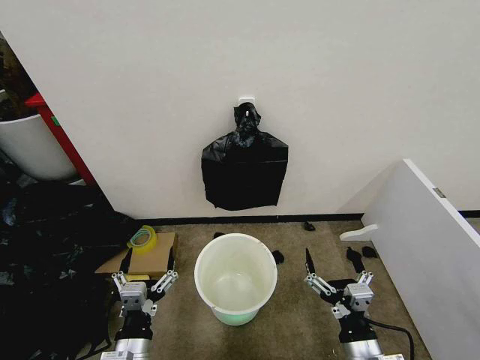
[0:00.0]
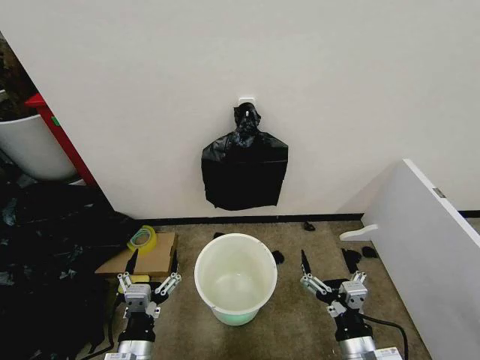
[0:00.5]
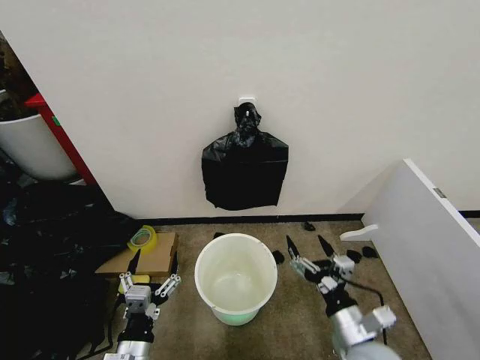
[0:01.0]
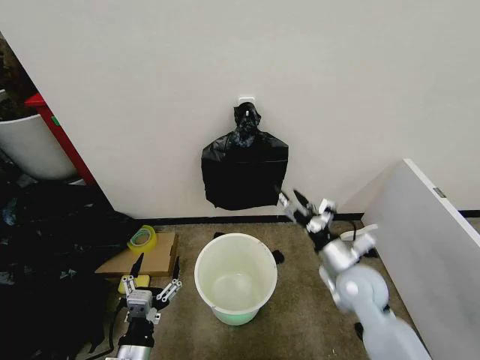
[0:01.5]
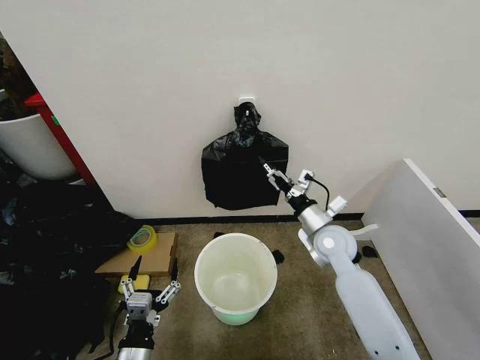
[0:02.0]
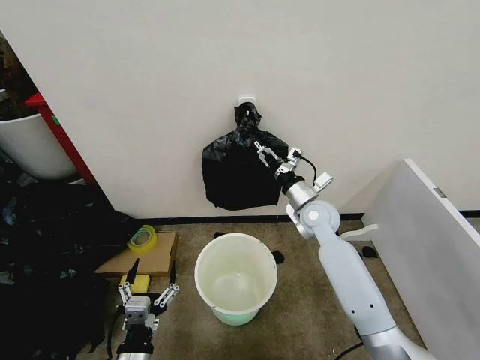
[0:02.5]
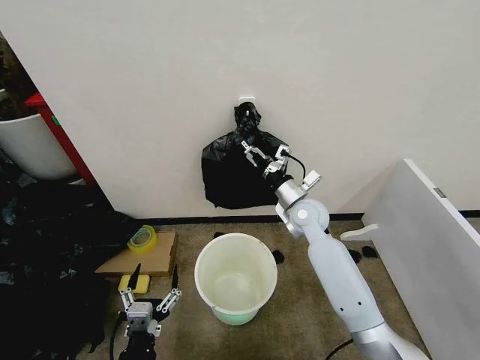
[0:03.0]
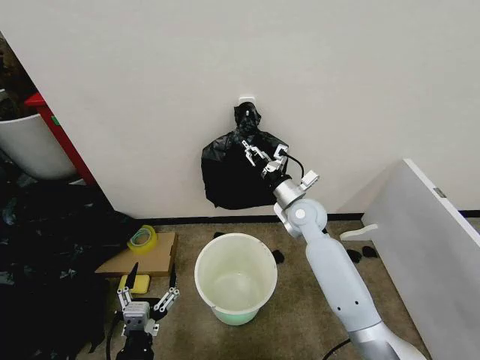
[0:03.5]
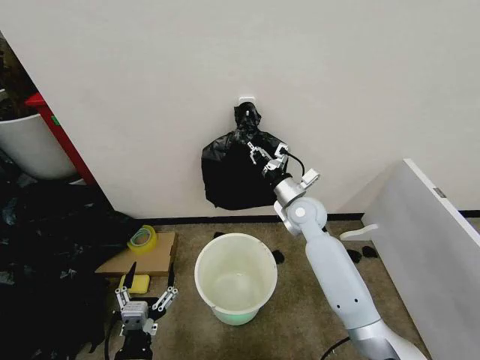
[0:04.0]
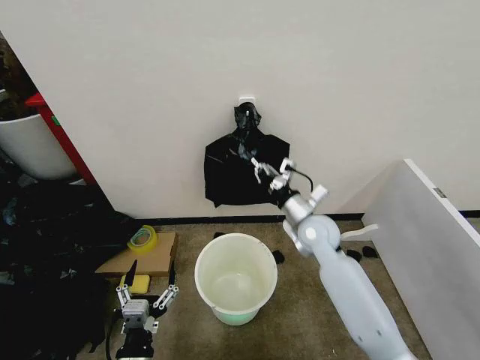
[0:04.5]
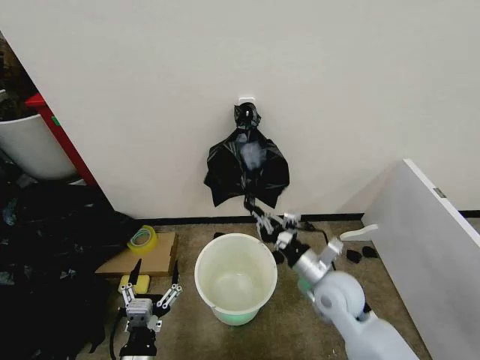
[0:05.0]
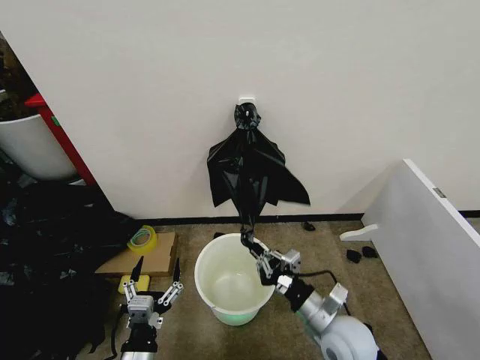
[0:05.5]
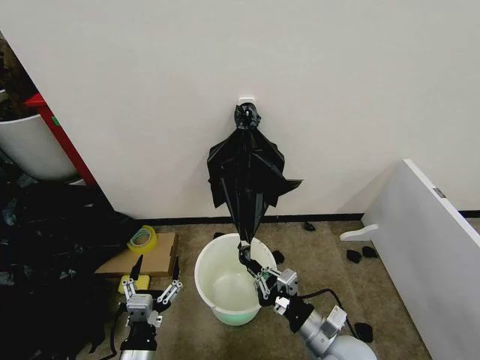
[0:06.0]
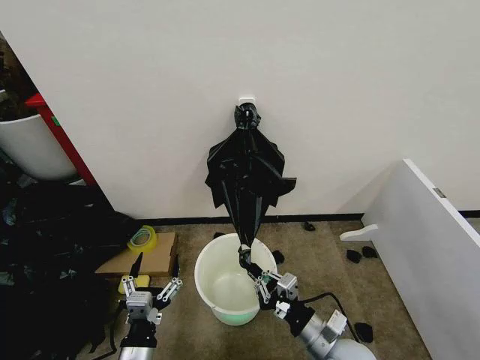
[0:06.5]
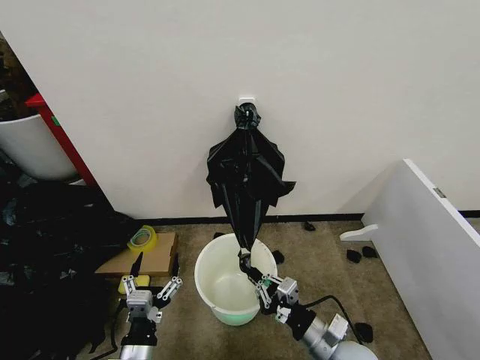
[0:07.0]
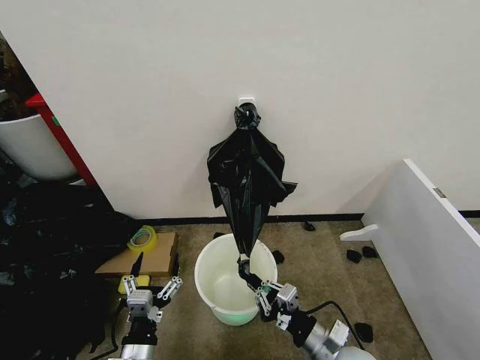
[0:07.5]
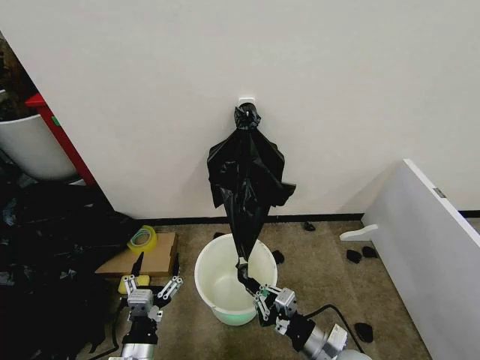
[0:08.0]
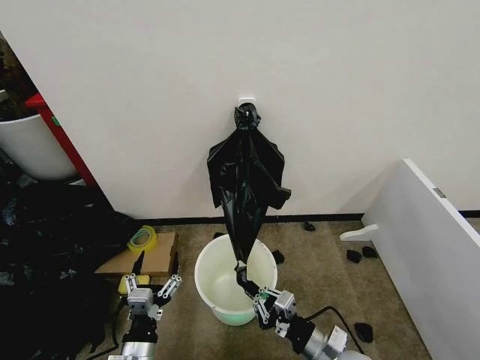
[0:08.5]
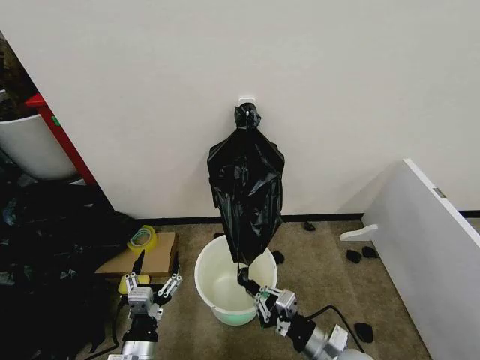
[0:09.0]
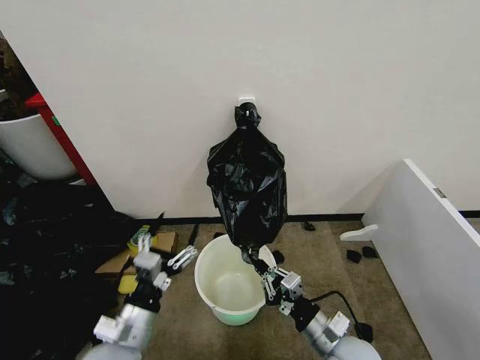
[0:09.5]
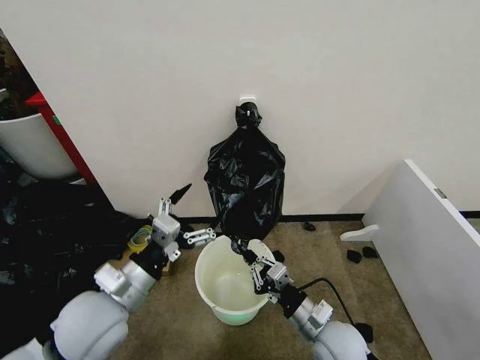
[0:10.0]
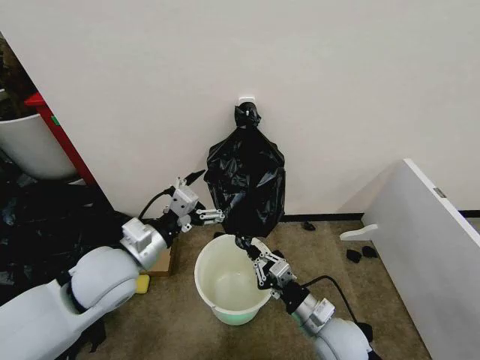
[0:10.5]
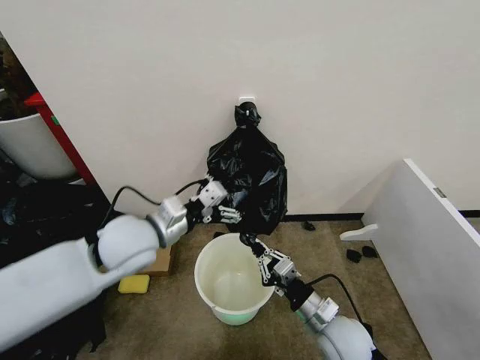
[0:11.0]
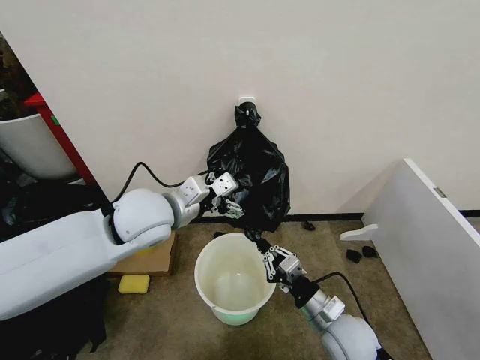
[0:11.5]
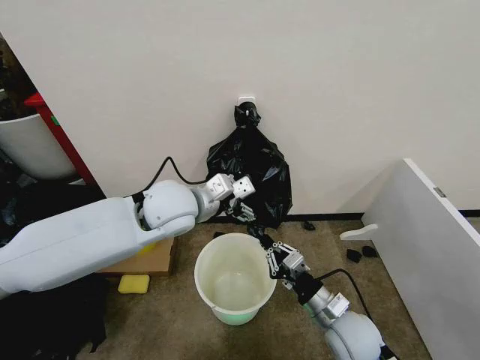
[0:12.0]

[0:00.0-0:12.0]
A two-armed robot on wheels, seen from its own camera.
Task of the whole recording: Place the garbage bag over the trash bin.
0:02.0 to 0:04.0: The right gripper shifts about 10 cm forward and to the left, and closes up.
0:04.0 to 0:06.0: The right gripper heads backward, covering some 30 cm.
0:06.0 to 0:08.0: The grippers move only a little.
0:08.0 to 0:10.0: The left gripper goes about 20 cm upward and forward, while the right gripper shifts by roughly 5 cm.
0:10.0 to 0:12.0: The left gripper heads forward, to the right and upward, covering about 20 cm.

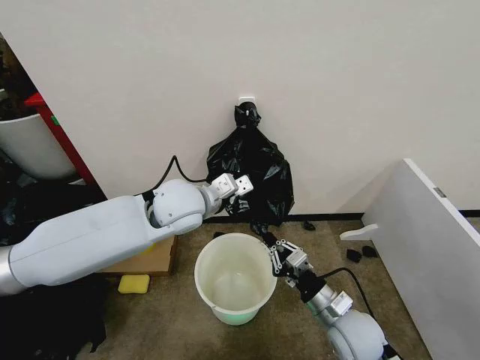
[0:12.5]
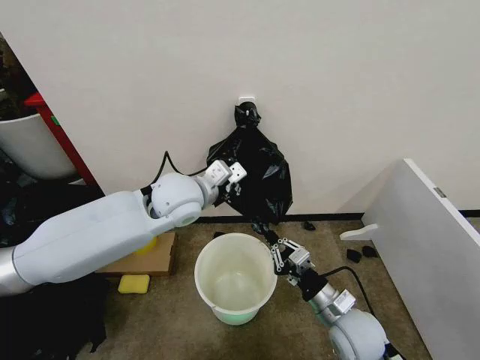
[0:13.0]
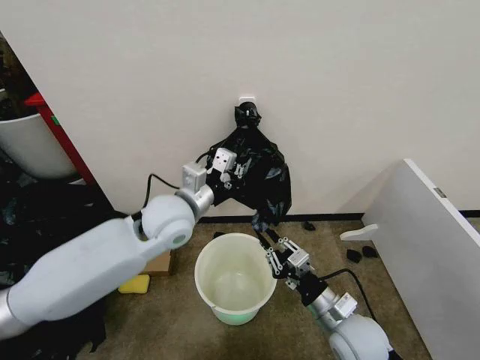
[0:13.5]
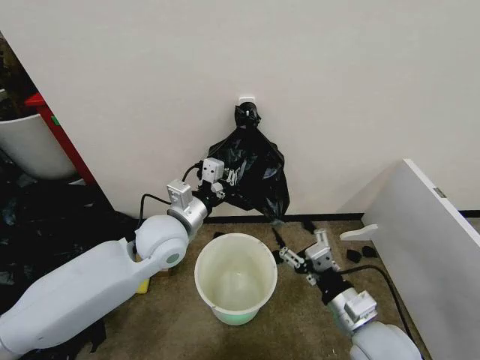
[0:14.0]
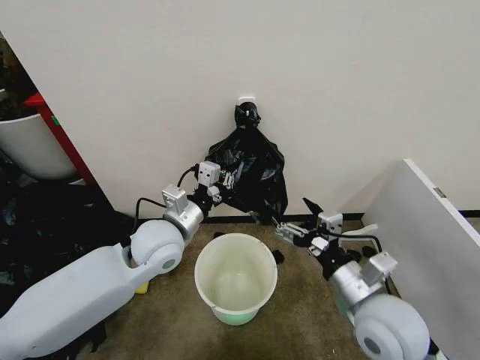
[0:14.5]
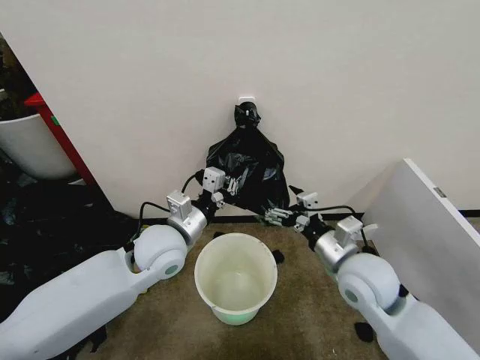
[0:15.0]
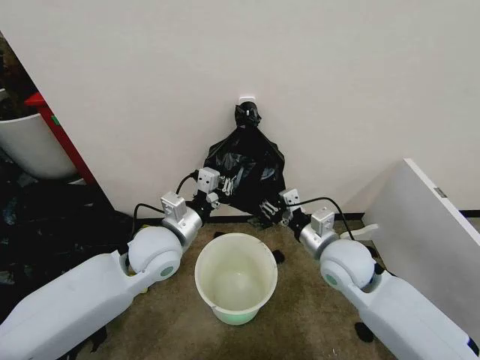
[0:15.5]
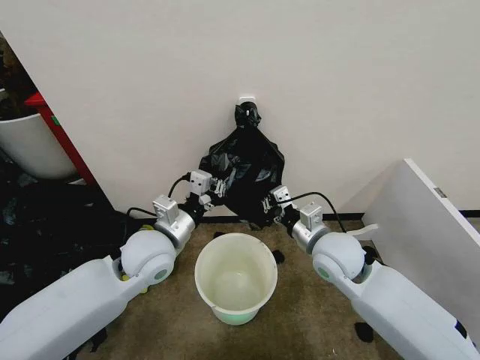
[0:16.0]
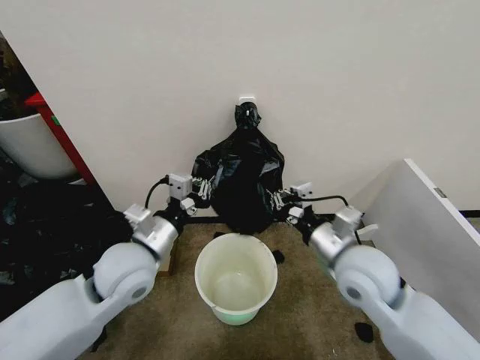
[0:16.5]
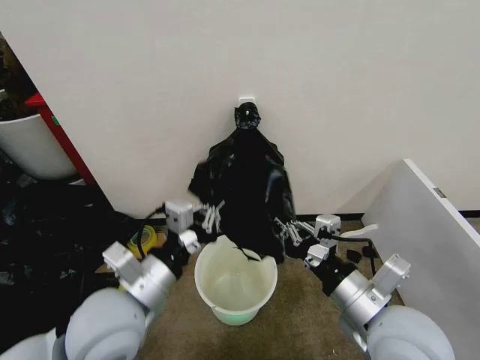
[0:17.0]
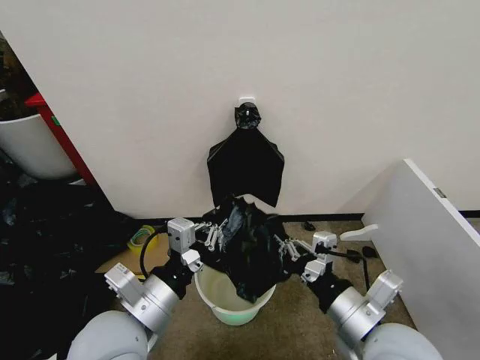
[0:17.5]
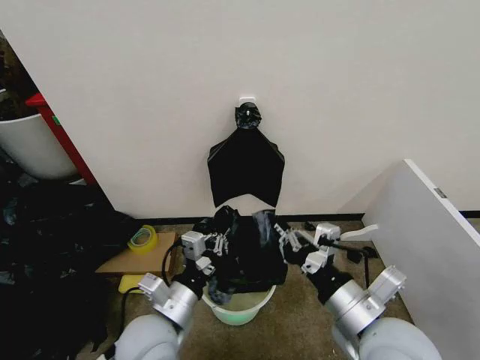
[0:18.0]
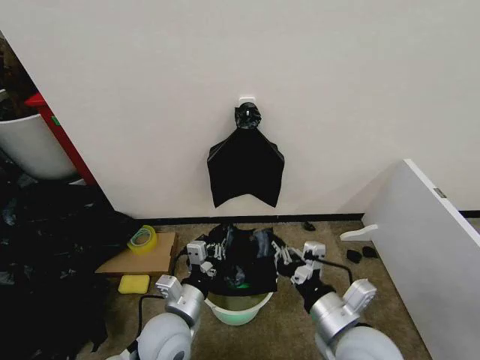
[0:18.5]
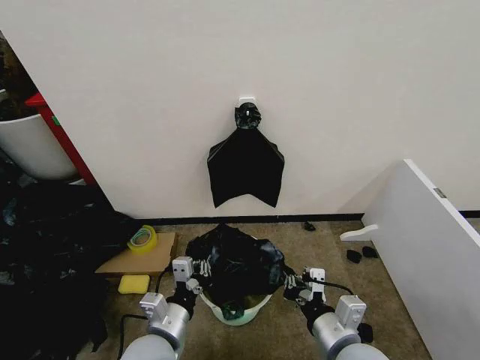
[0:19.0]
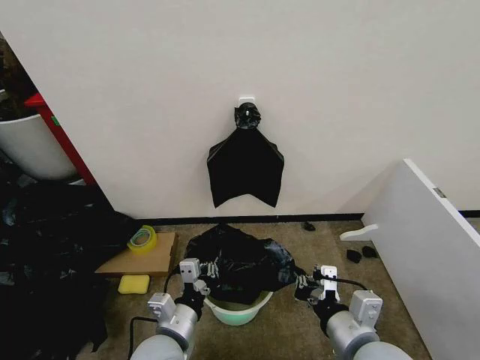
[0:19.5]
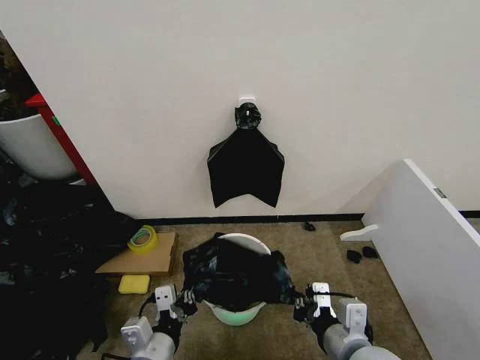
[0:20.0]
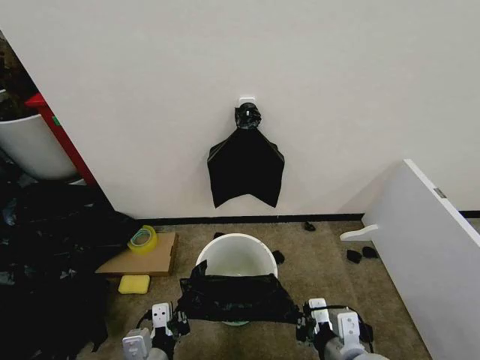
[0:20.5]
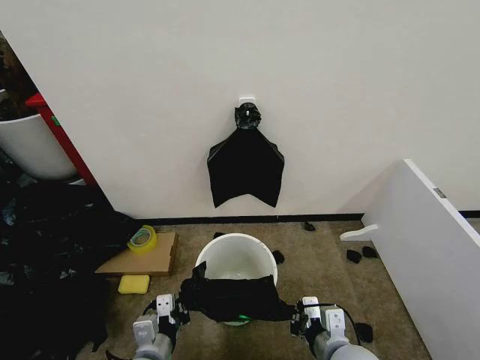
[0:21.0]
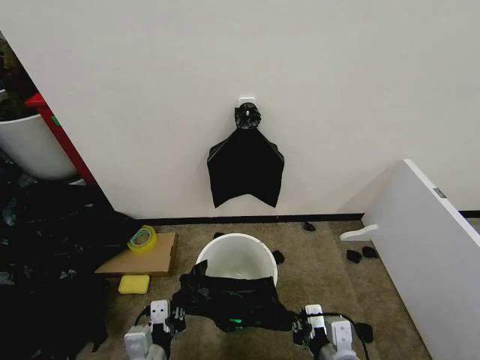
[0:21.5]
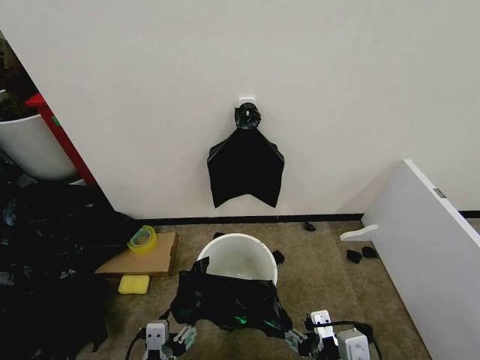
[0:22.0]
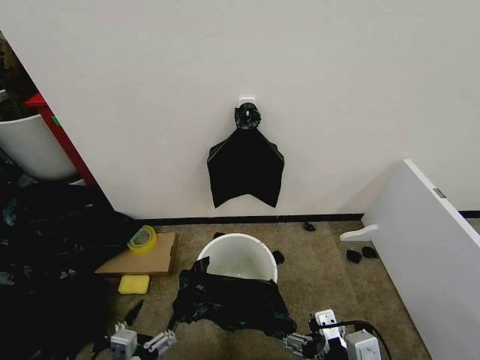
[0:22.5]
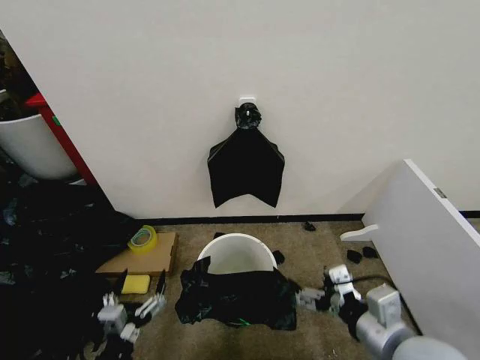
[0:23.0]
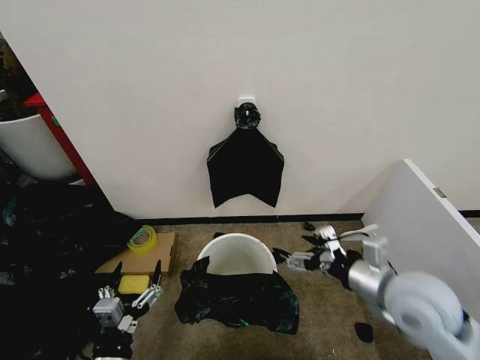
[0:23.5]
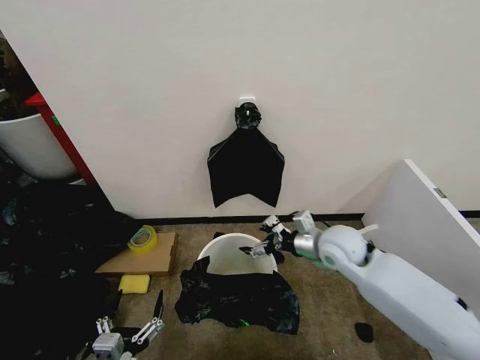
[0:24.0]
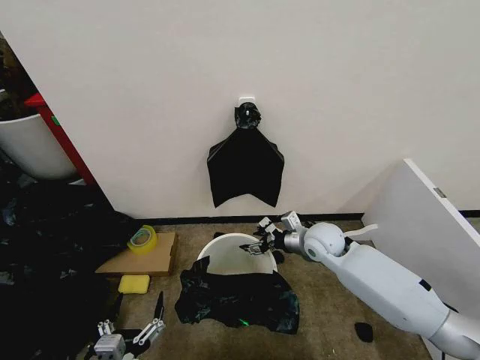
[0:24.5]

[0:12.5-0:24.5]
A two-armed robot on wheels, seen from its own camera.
Task of the whole recording: Place the garbage bag over the trash bin.
0:12.5 to 0:14.5: The left gripper is displaced downward by some 5 cm, and closes its fingers. The right gripper is displaced upward by approximately 15 cm, and opens up.
0:14.5 to 0:16.5: The left gripper heads backward, covering about 5 cm, while the right gripper is displaced forward by approximately 5 cm, and closes its fingers.
0:16.5 to 0:18.5: The left gripper goes about 15 cm downward and backward, while the right gripper heads backward and downward, covering approximately 10 cm.
0:18.5 to 0:20.5: The left gripper is displaced backward by approximately 10 cm.
0:20.5 to 0:22.5: The right gripper moves approximately 5 cm, and opens. The left gripper shifts approximately 10 cm backward and to the left, and opens up.
0:22.5 to 0:24.5: The right gripper is displaced forward by some 35 cm.

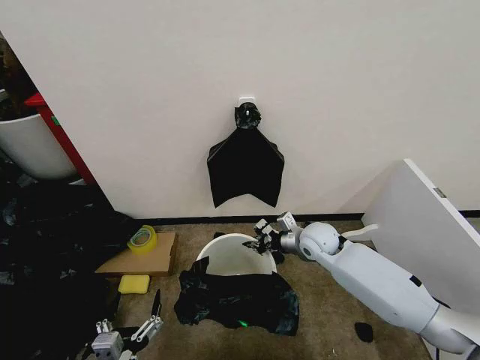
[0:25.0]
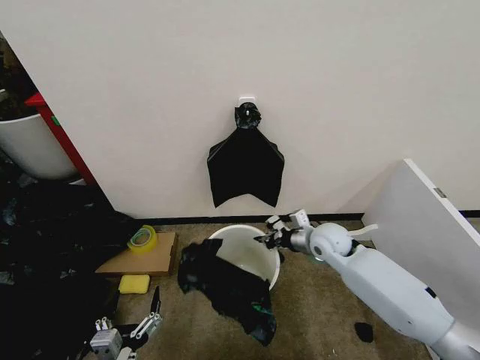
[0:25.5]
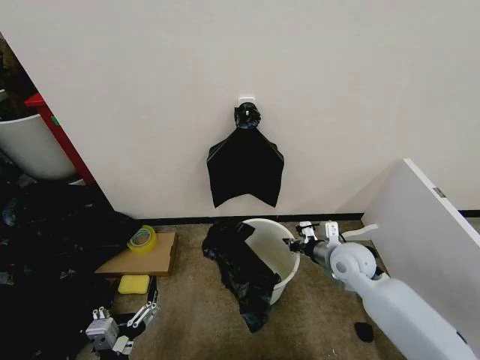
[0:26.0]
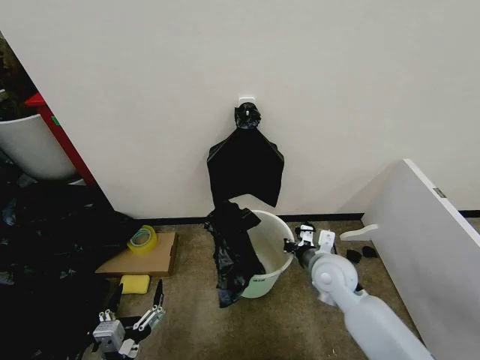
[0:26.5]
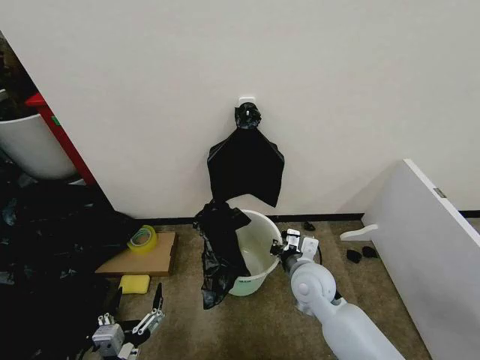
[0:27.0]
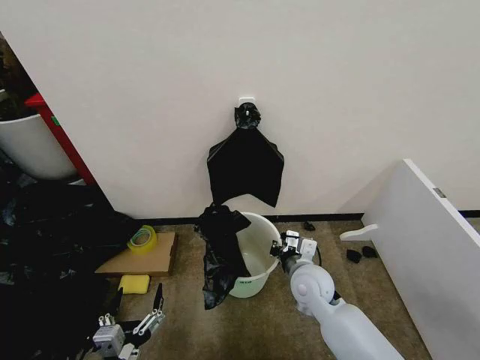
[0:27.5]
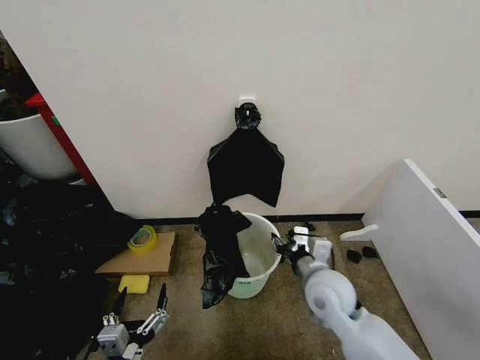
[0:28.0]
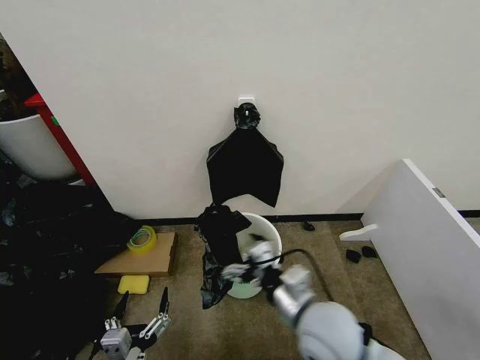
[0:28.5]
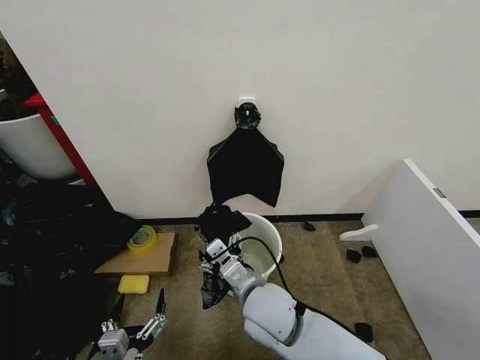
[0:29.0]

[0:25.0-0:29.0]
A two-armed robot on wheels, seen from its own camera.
Task of the whole recording: Place the garbage bag over the trash bin.
0:25.0 to 0:27.0: The right gripper travels backward by roughly 10 cm.
0:27.0 to 0:29.0: The right gripper travels to the left, backward and upward by approximately 15 cm, and opens up.
